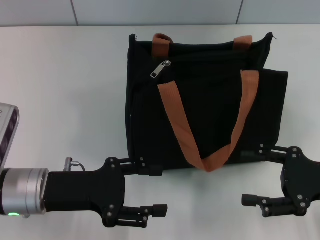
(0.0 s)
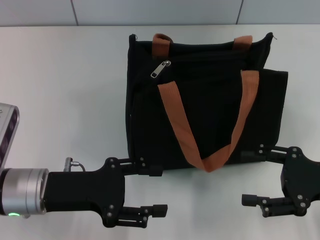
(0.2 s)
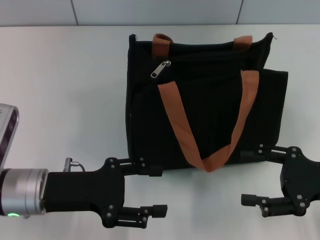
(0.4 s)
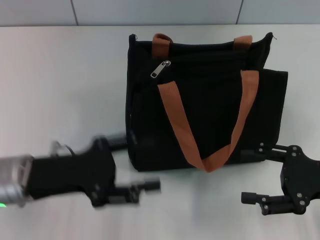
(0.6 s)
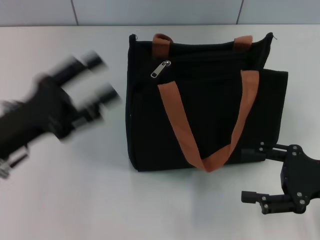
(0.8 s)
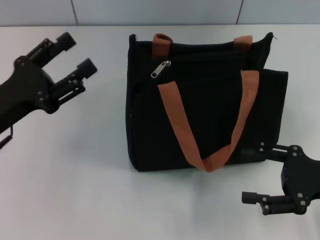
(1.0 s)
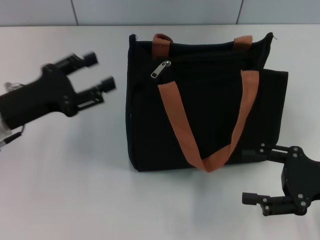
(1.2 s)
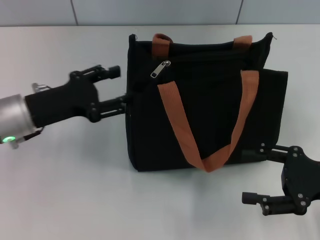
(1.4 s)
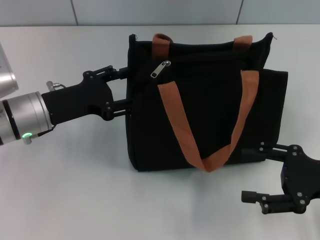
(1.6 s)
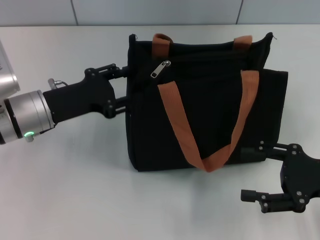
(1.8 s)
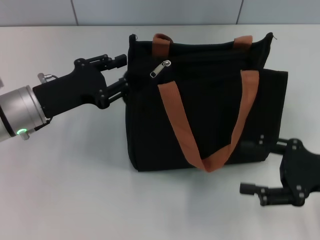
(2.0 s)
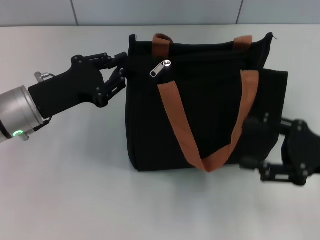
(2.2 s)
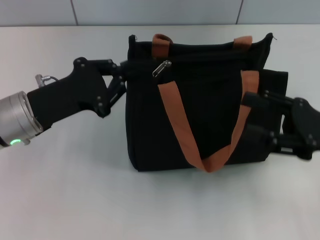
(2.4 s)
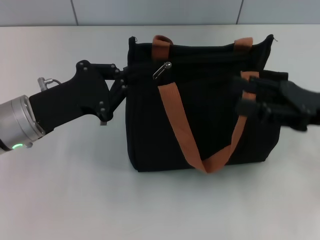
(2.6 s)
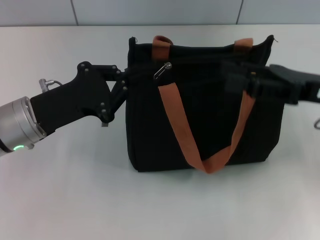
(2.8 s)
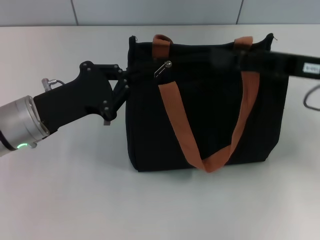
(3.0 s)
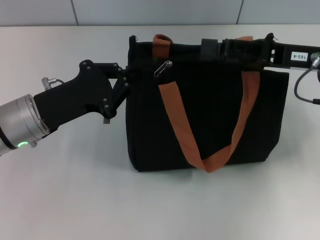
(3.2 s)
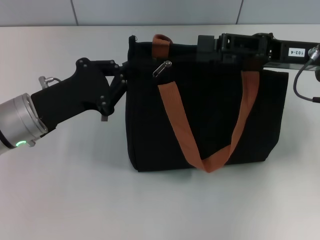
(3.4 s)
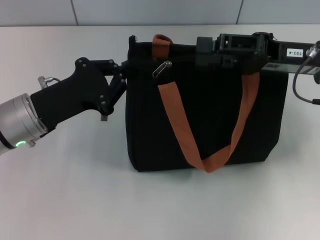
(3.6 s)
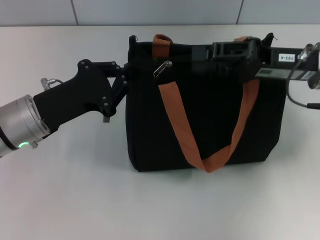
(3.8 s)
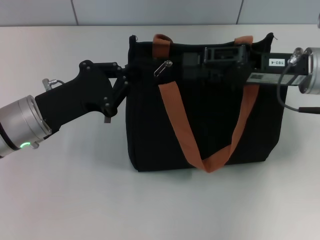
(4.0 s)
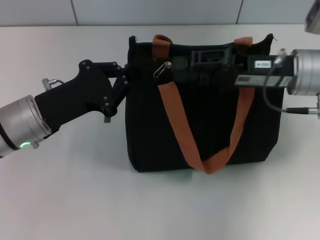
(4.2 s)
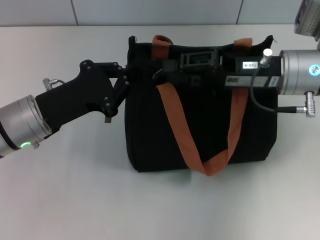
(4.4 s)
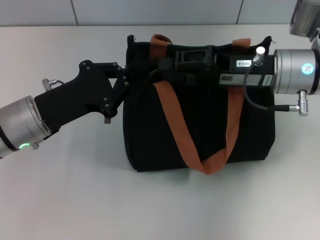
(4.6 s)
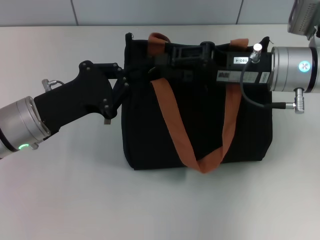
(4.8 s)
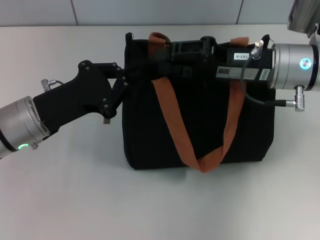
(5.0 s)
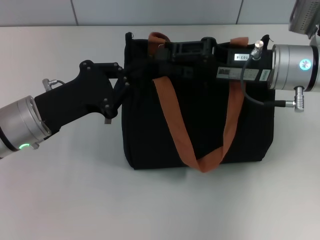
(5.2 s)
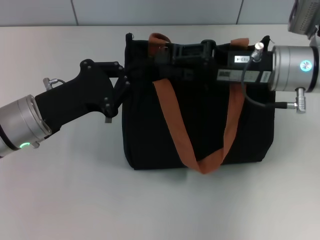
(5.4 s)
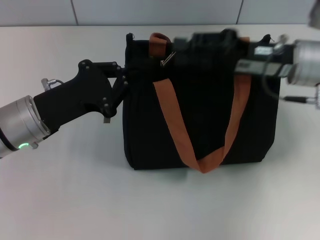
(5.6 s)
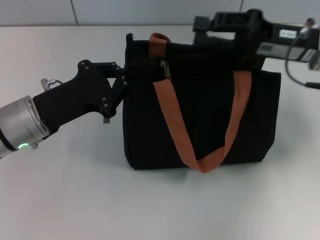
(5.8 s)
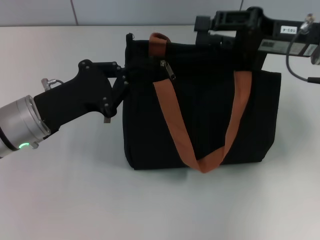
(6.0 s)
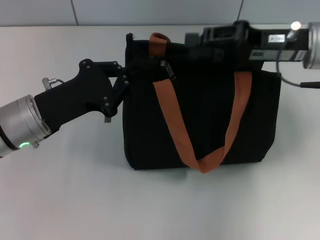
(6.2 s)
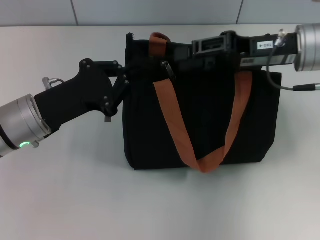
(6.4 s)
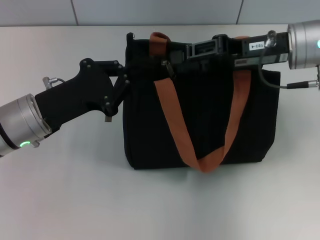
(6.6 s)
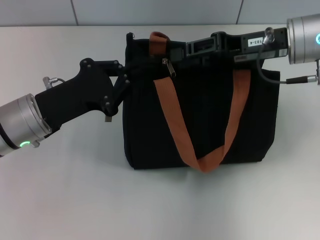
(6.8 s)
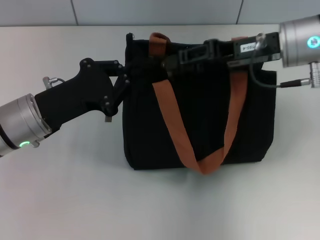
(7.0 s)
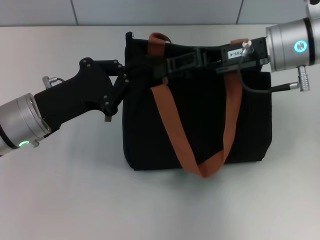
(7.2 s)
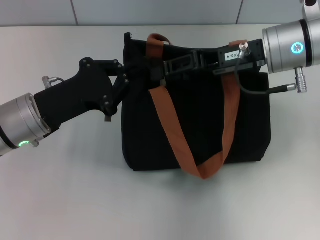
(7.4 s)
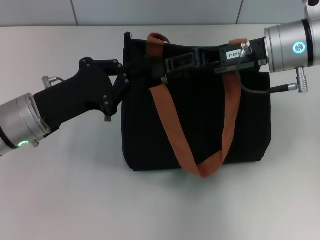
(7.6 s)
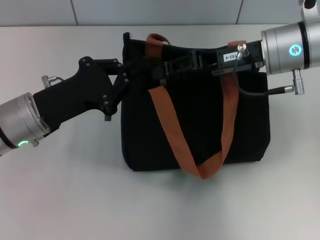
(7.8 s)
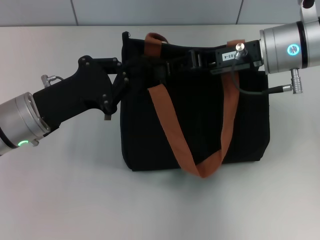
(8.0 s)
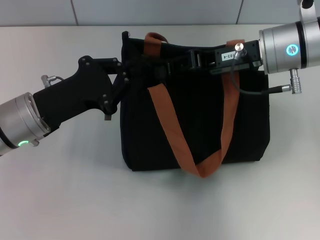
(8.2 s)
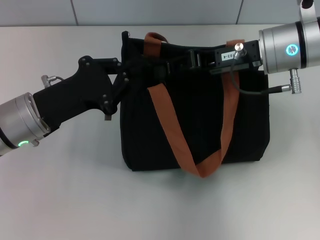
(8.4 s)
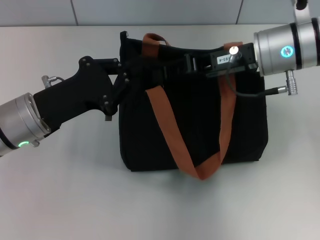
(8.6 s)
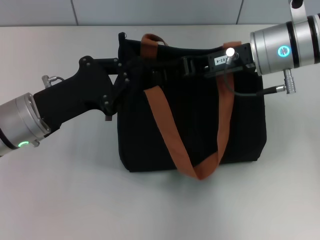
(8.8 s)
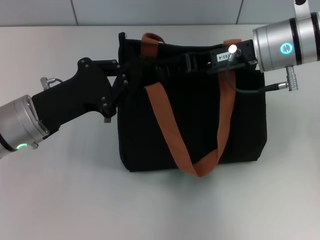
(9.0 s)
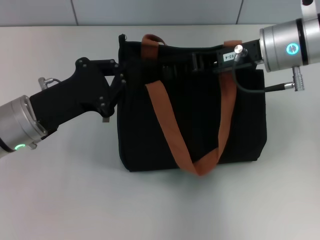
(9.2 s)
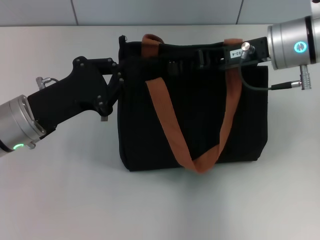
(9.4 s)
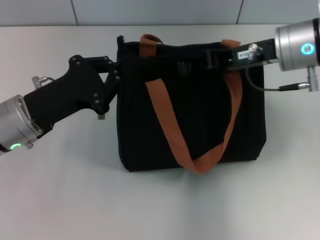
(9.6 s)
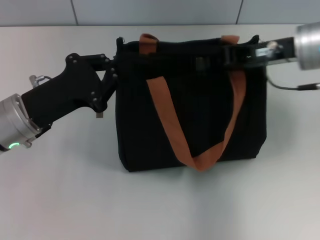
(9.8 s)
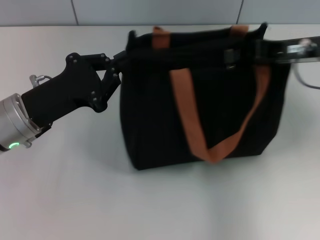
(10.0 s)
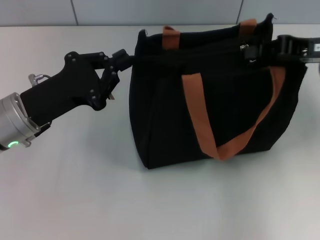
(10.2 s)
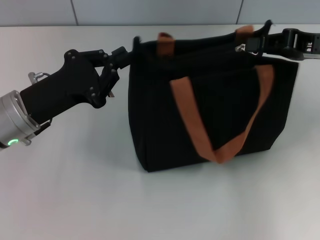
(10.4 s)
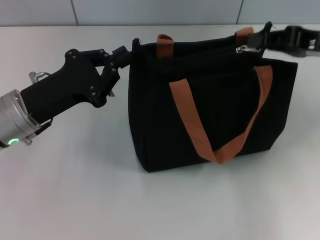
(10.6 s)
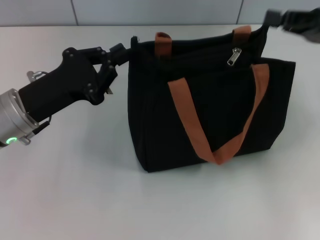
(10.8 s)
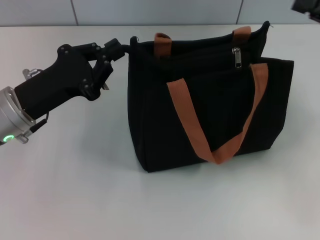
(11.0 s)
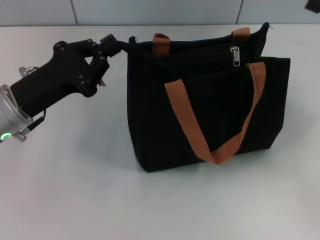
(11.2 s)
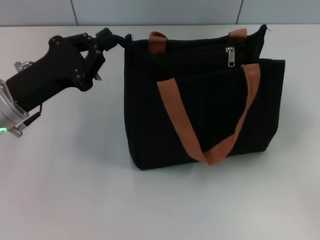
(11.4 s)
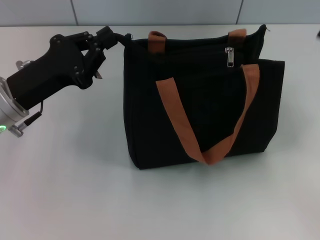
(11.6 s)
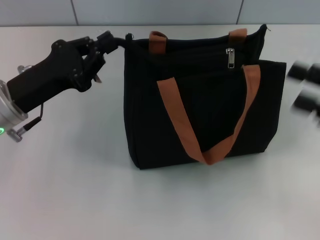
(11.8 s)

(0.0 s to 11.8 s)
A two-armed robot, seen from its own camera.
Step, 0.0 s - 11.0 s: Pull up the zipper with your right hand.
0.0 s - 1.4 s: The left gripper goes some 5 cm forward.
1.4 s - 3.0 s: The right gripper is displaced forward and upward by approximately 15 cm, while the left gripper closes.
3.0 s - 4.4 s: The right gripper travels to the left by approximately 5 cm, and closes.
4.4 s - 6.0 s: The right gripper shifts by approximately 5 cm.
6.0 s - 7.4 s: The right gripper heads to the left, covering approximately 5 cm.
7.4 s - 8.8 s: Both grippers stay about where they are.
8.8 s - 10.4 s: The right gripper goes approximately 10 cm to the right.
10.4 s - 11.8 s: The right gripper is displaced backward and downward by some 10 cm, and opens its fingers.

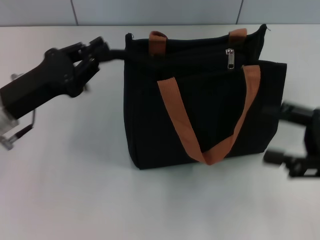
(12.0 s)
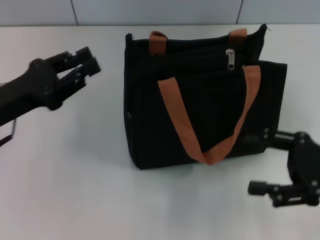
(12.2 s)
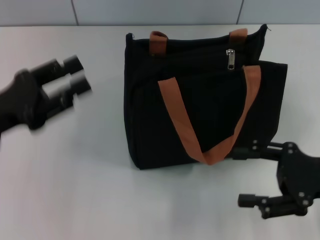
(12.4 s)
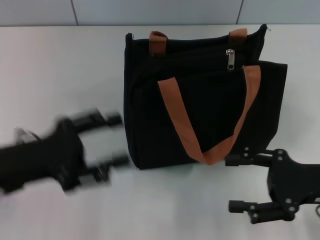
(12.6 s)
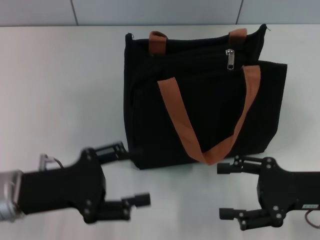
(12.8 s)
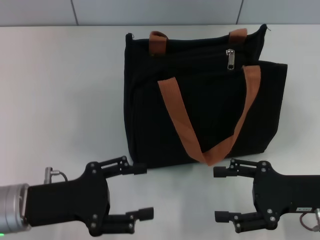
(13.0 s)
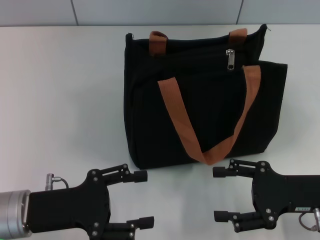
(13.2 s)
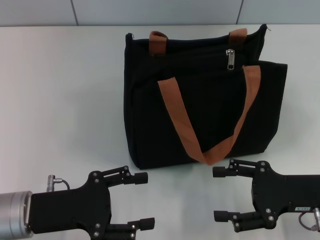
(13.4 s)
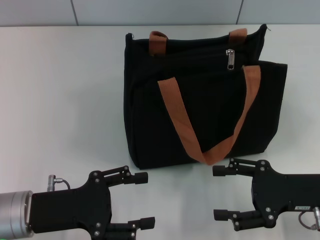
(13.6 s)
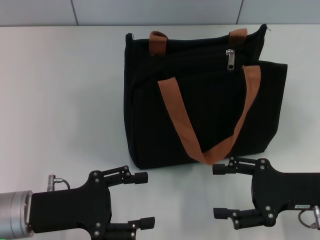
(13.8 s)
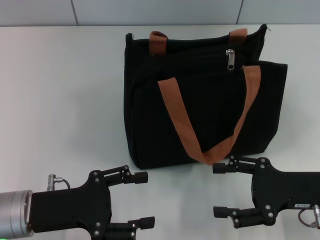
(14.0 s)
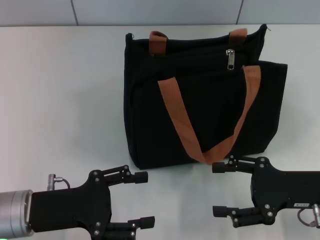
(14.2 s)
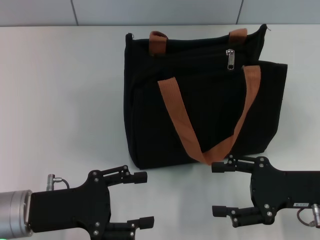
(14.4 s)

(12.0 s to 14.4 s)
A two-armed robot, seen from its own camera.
12.0 s - 13.2 s: The right gripper shifts some 5 cm downward, while the left gripper heads backward and downward, covering approximately 10 cm, and opens.
13.2 s - 14.4 s: Neither gripper changes place.

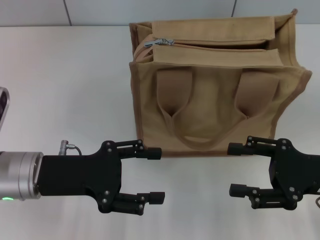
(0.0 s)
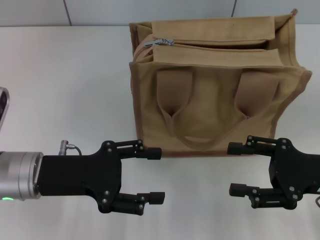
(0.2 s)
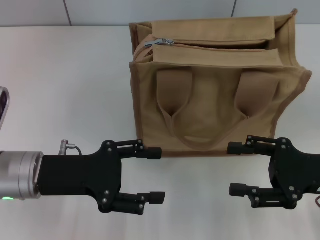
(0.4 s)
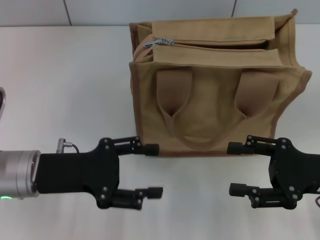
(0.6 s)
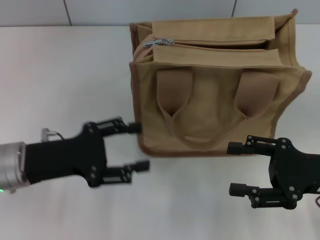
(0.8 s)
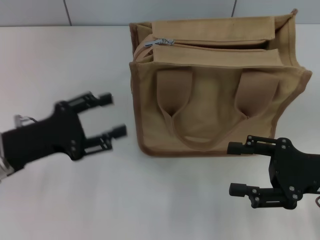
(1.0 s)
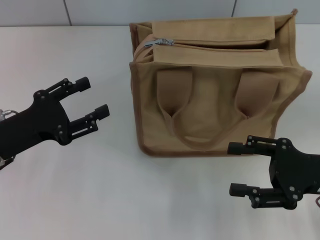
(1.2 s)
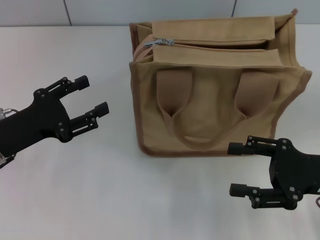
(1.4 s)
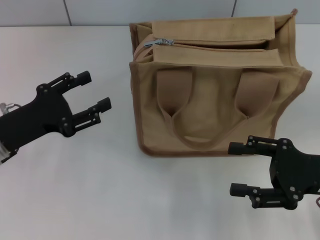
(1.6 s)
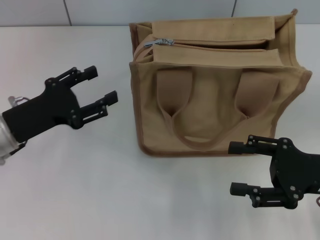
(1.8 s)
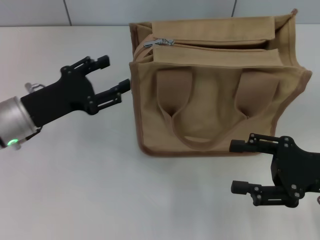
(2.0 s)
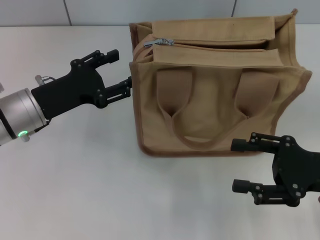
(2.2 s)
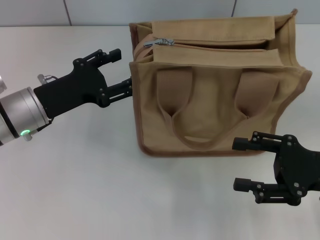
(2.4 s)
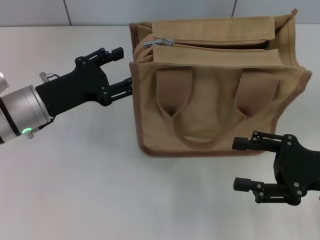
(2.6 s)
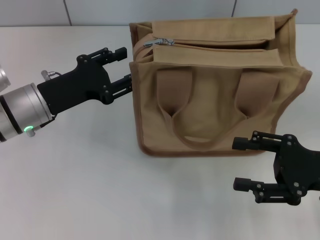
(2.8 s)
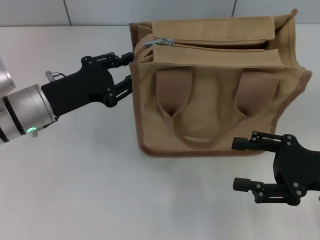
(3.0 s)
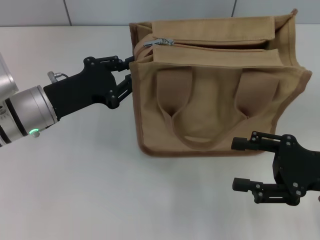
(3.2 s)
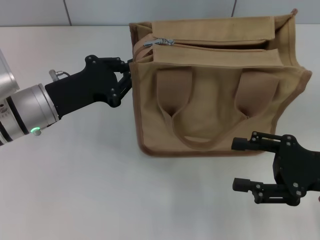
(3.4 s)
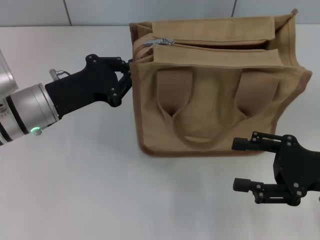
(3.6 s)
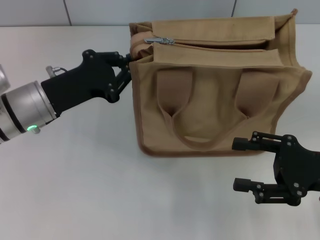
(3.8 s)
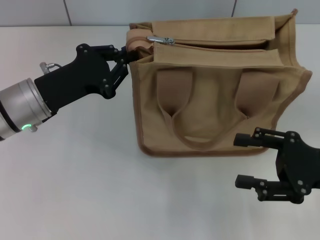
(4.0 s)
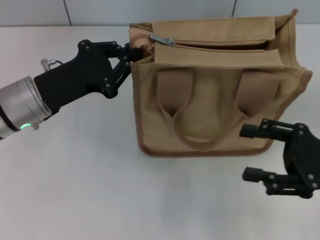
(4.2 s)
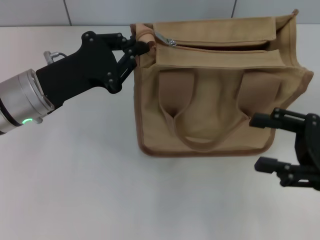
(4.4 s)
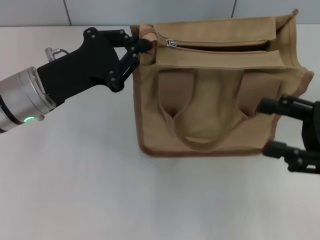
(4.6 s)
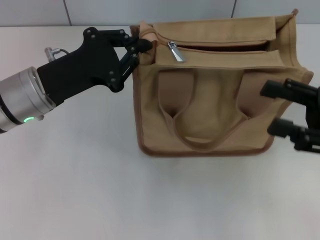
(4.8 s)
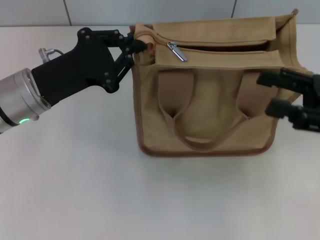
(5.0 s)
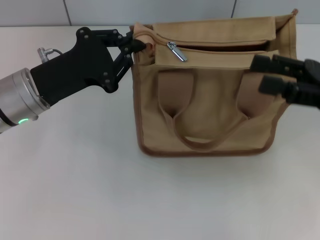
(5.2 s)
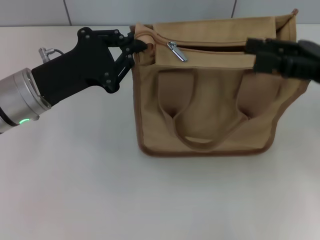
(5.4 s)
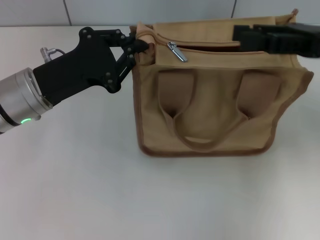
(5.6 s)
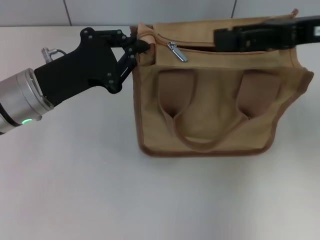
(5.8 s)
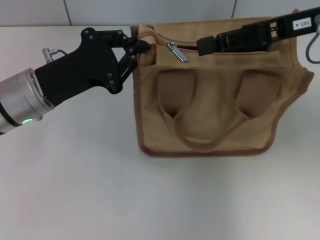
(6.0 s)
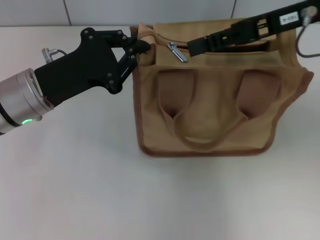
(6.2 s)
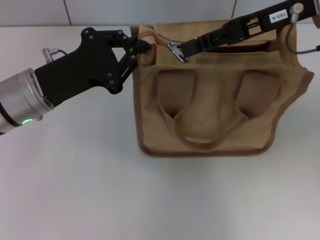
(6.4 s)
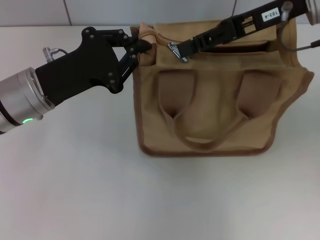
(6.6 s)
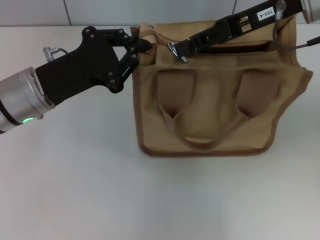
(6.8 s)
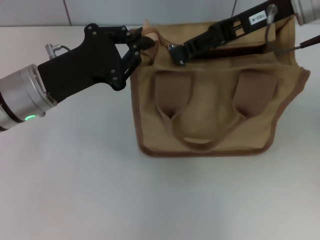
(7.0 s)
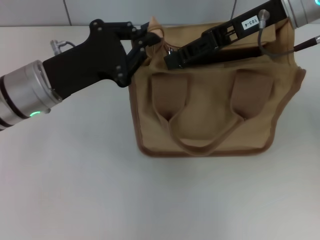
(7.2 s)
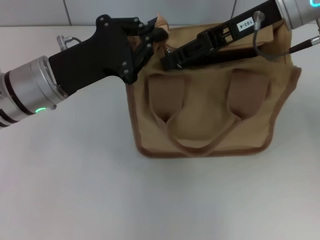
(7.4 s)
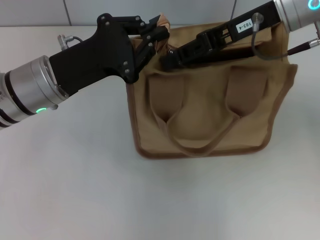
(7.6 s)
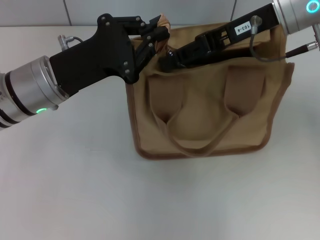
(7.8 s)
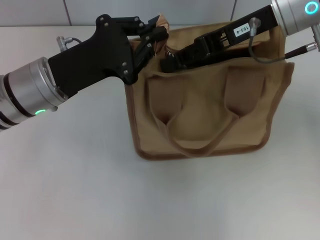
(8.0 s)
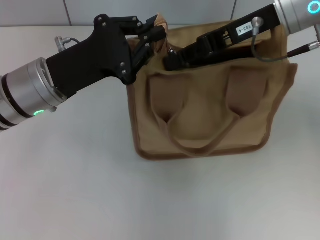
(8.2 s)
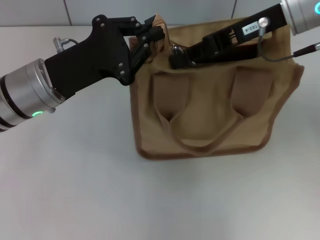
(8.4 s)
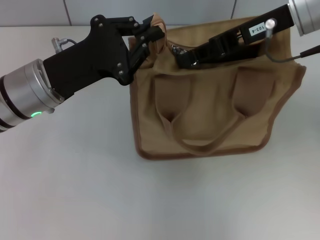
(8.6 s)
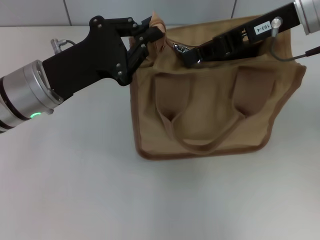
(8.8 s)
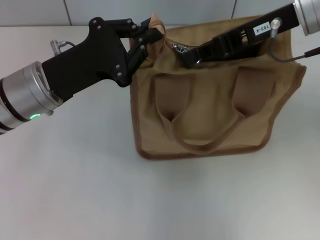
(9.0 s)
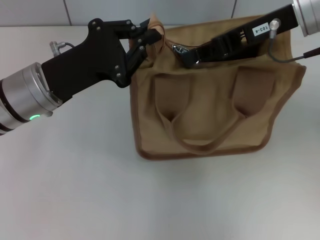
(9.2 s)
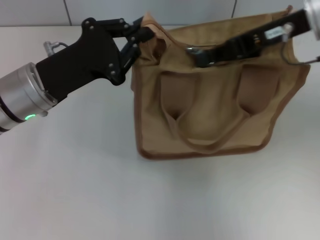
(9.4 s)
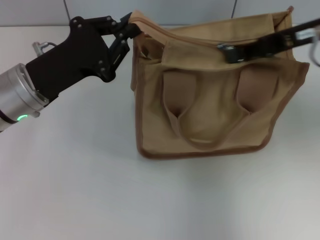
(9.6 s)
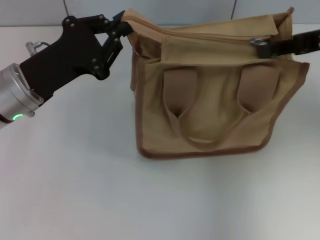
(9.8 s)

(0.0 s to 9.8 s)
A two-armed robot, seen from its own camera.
0.0 s - 1.4 s: The left gripper travels to the left by some 5 cm.
1.4 s - 2.8 s: The left gripper moves forward and to the right, roughly 10 cm.
2.8 s - 4.2 s: The left gripper closes.
4.2 s - 5.6 s: The right gripper moves upward and forward, roughly 15 cm.
5.6 s - 7.0 s: The right gripper goes approximately 10 cm to the left and forward, and closes.
7.0 s - 8.4 s: The right gripper closes up.
8.4 s - 9.8 s: The right gripper heads to the right, covering about 10 cm.